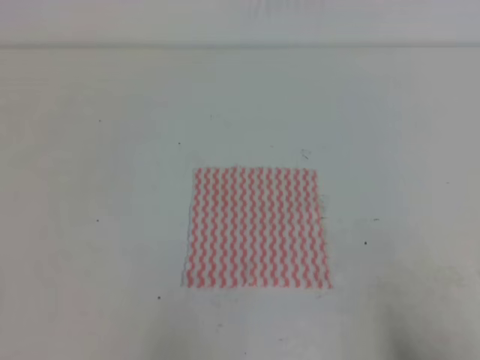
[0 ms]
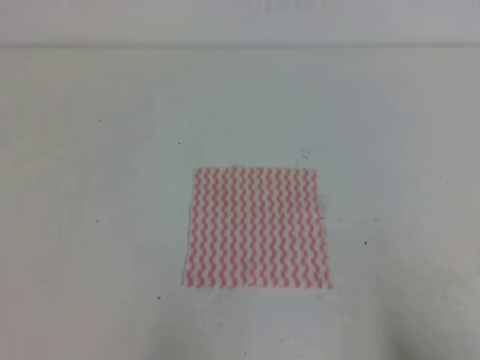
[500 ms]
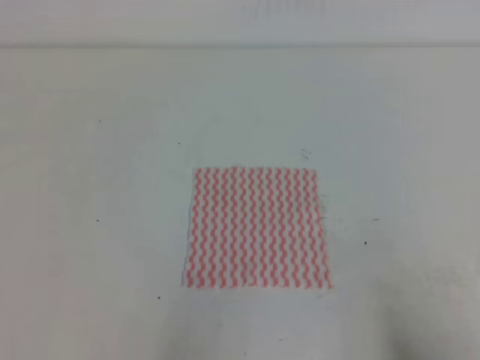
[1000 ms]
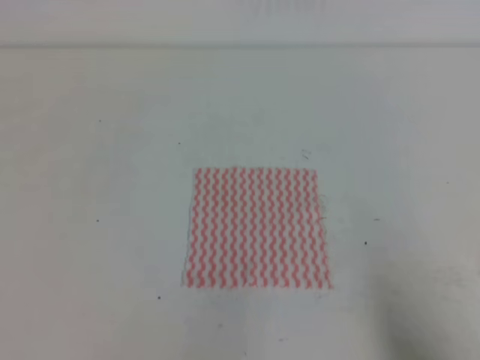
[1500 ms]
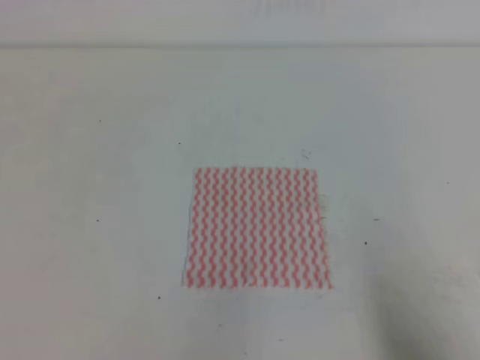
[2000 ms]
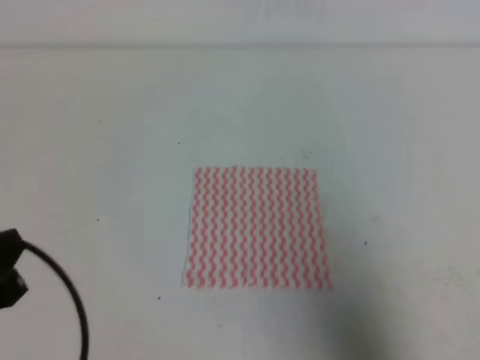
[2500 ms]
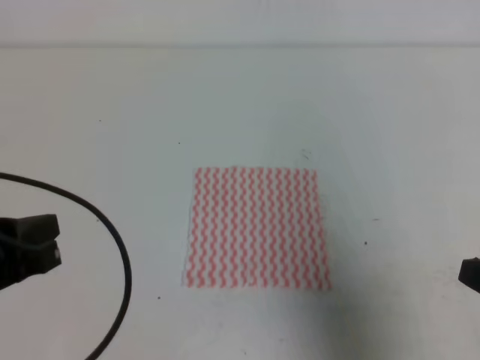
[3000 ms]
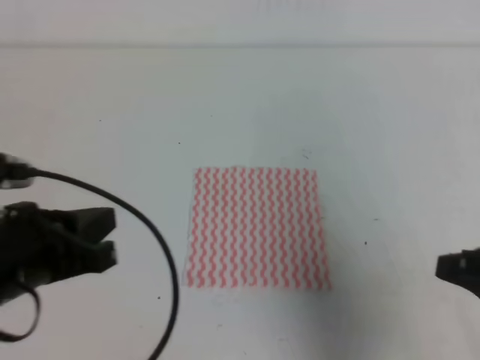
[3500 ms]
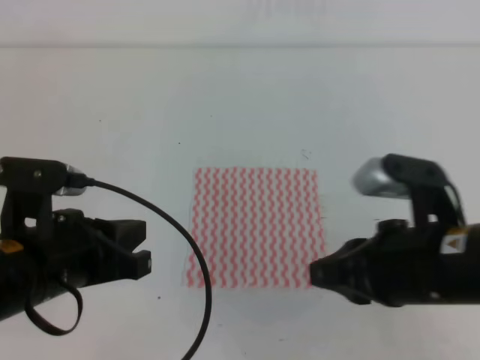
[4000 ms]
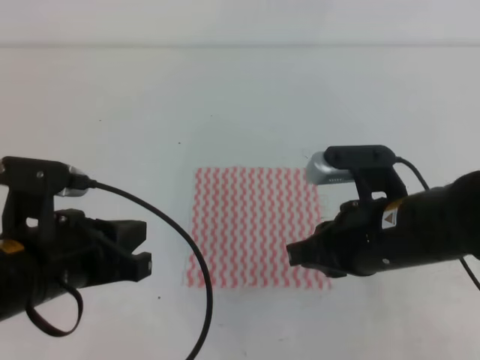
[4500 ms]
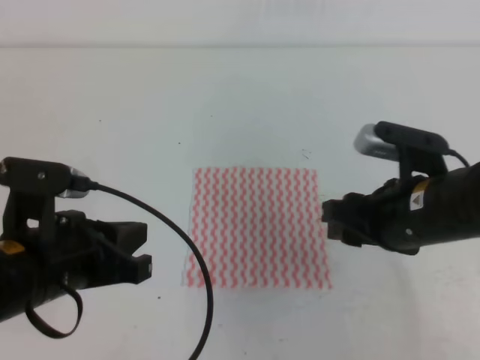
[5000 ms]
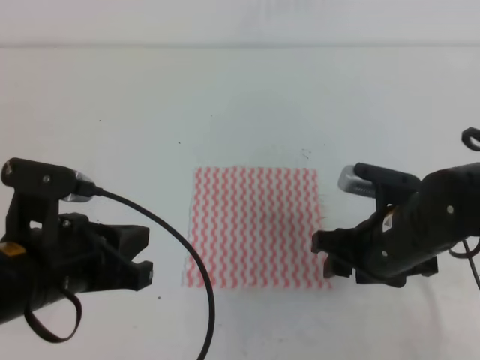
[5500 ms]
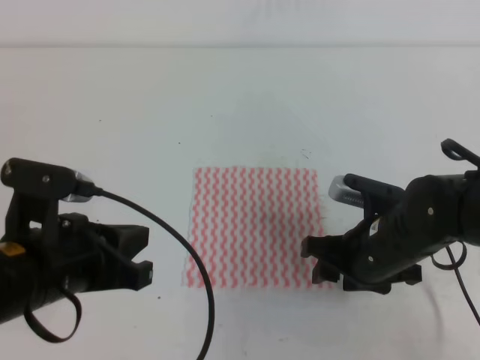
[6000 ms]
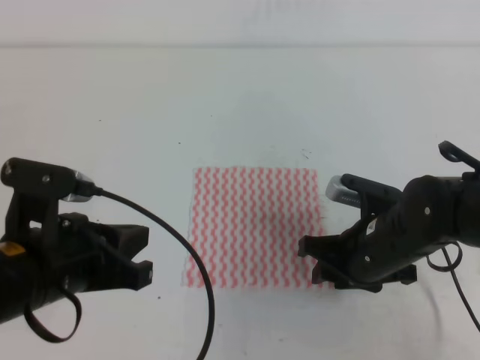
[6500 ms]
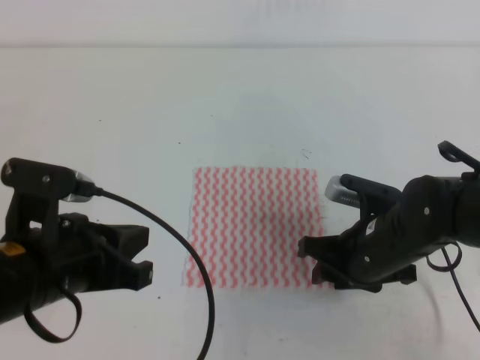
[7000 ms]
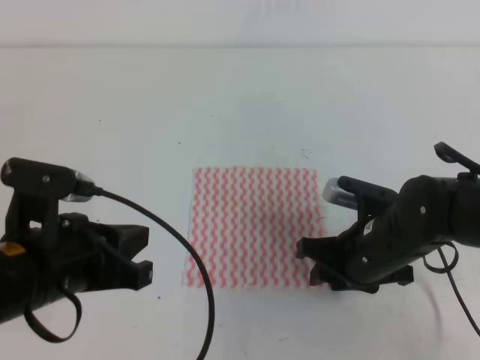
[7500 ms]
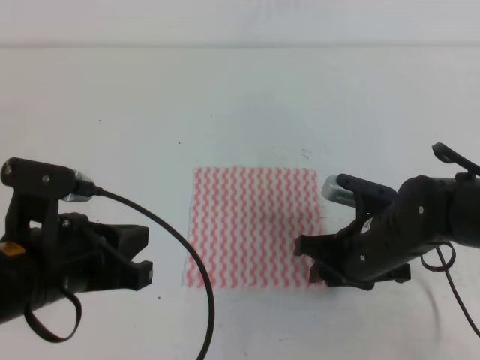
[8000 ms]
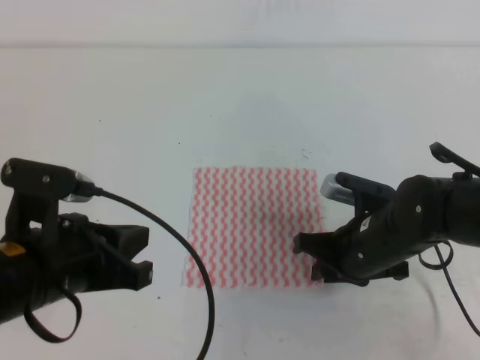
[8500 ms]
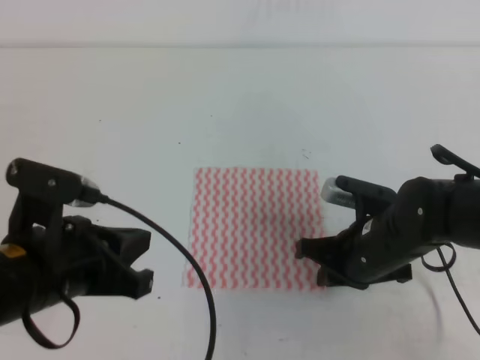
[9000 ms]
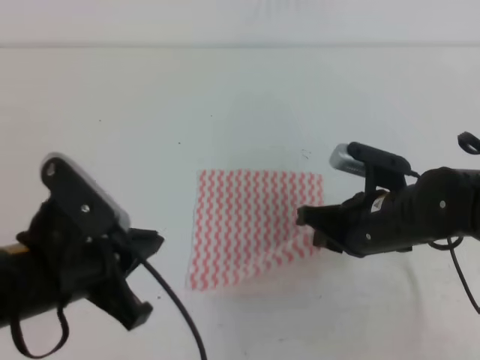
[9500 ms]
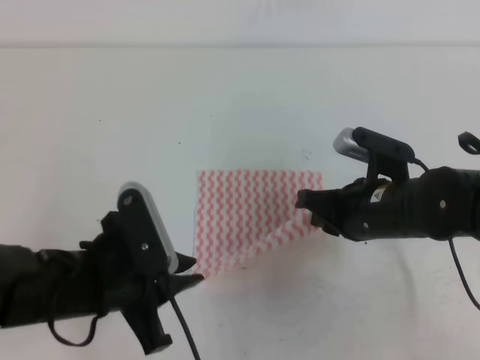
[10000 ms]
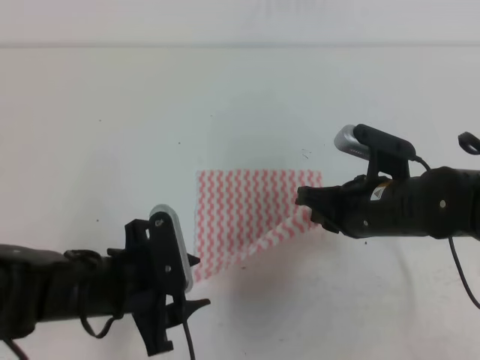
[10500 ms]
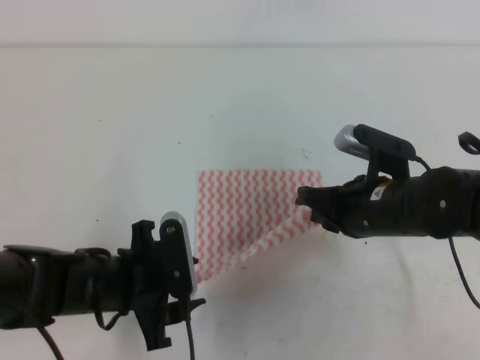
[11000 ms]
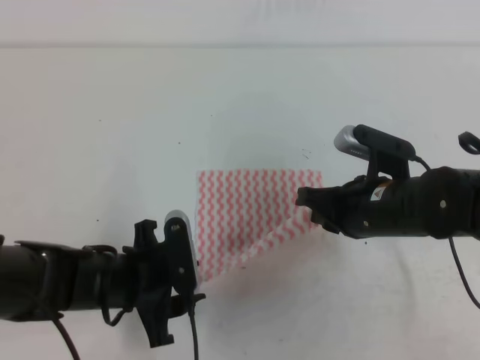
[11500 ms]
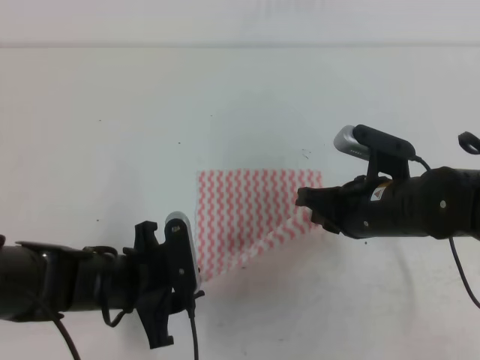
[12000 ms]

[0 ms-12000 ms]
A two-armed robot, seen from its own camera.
2000 ms to 4000 ms: The left gripper heads forward and to the right, covering some 15 cm, while the right gripper goes some 20 cm to the left, forward and upward.
4000 ms to 6000 ms: The right gripper shifts approximately 15 cm downward and forward, and opens up.
6000 ms to 8000 ms: The right gripper closes its fingers.
8000 ms to 10000 ms: The left gripper moves roughly 5 cm, and opens. The right gripper closes.
10000 ms to 12000 ms: The left gripper shifts roughly 5 cm downward, and opens, then closes again.

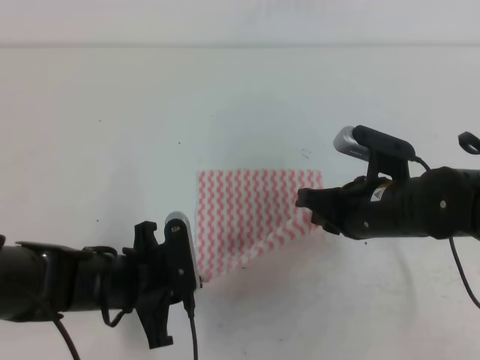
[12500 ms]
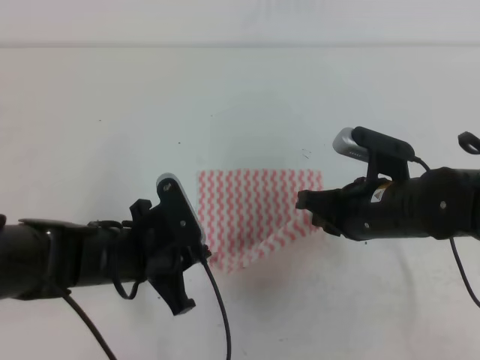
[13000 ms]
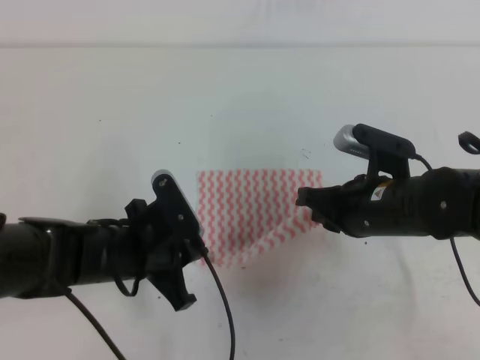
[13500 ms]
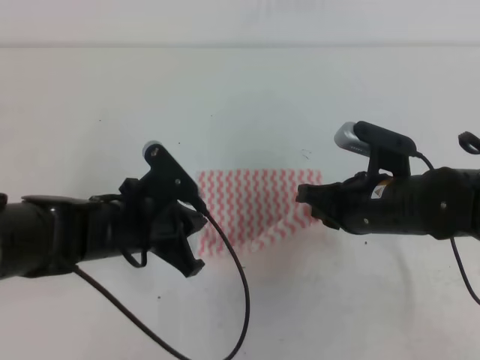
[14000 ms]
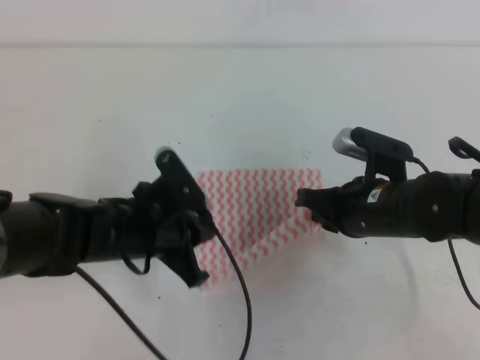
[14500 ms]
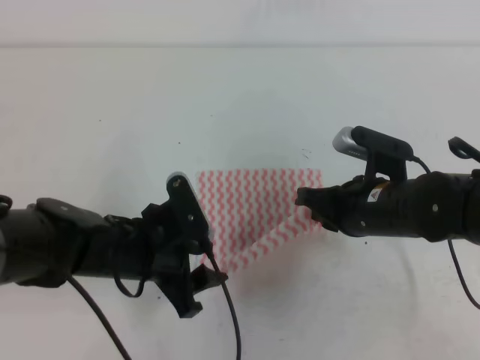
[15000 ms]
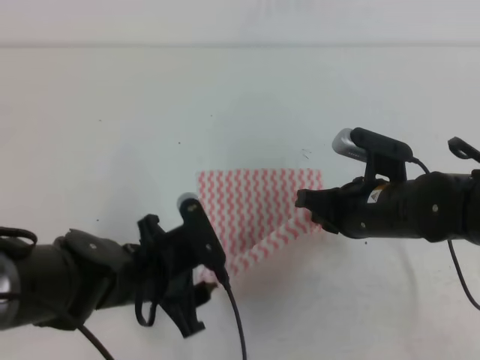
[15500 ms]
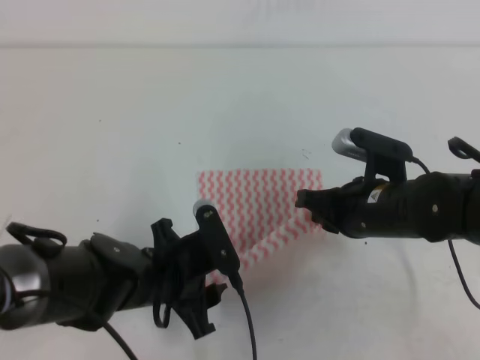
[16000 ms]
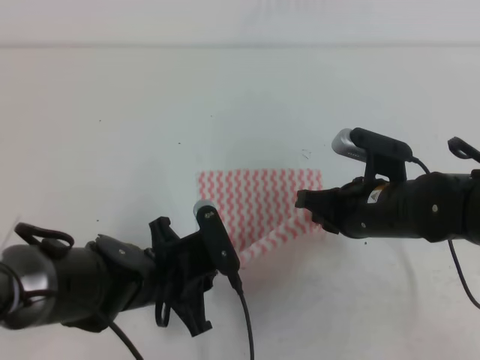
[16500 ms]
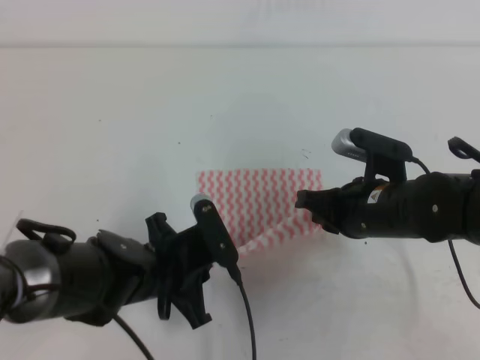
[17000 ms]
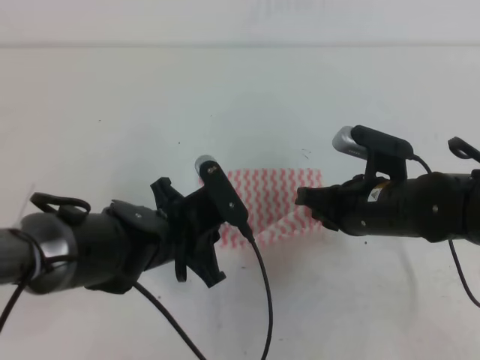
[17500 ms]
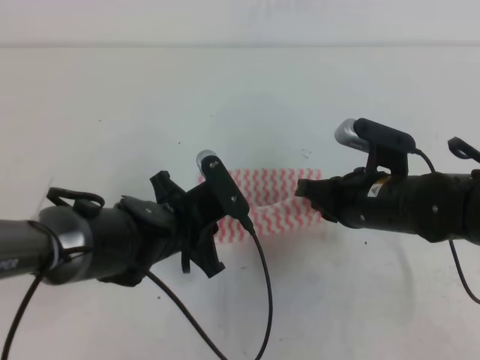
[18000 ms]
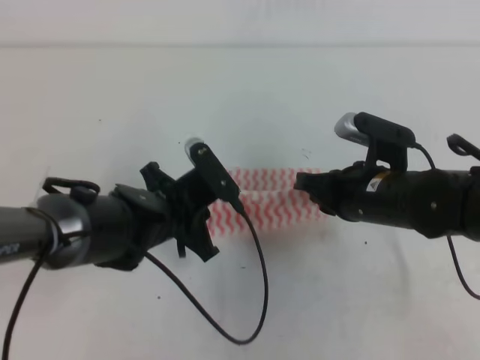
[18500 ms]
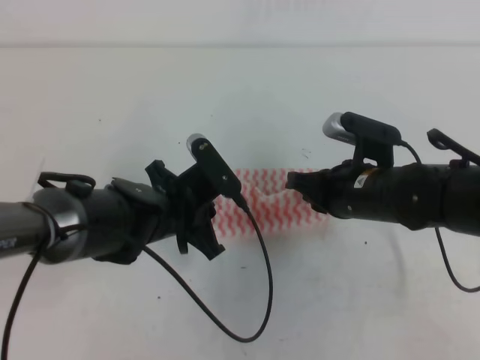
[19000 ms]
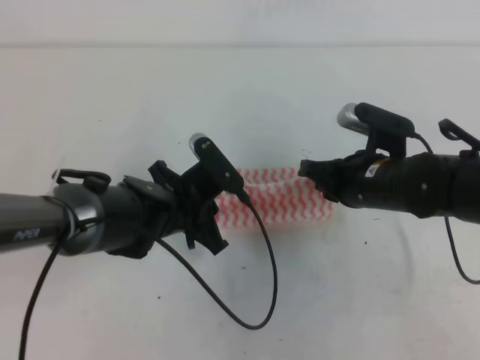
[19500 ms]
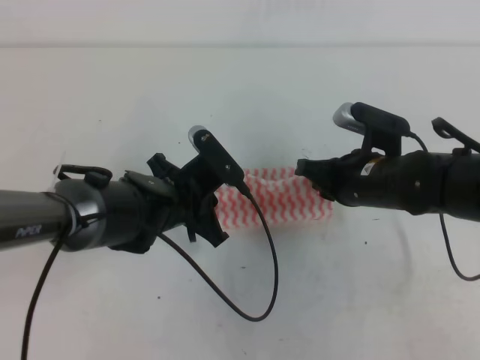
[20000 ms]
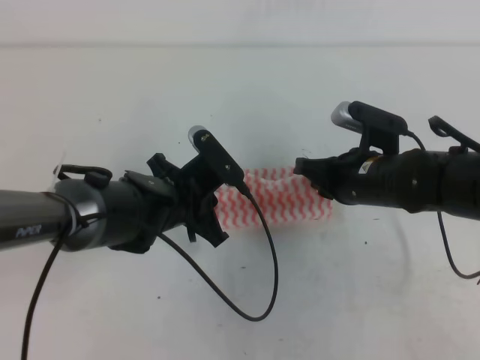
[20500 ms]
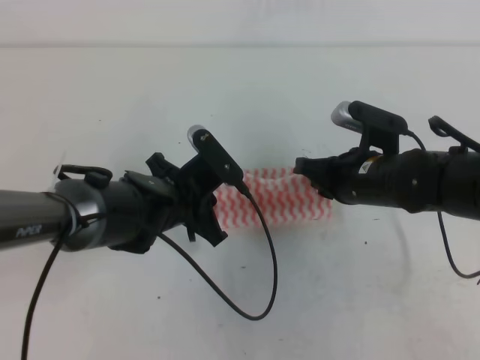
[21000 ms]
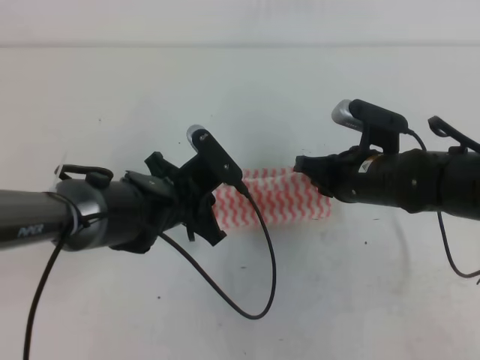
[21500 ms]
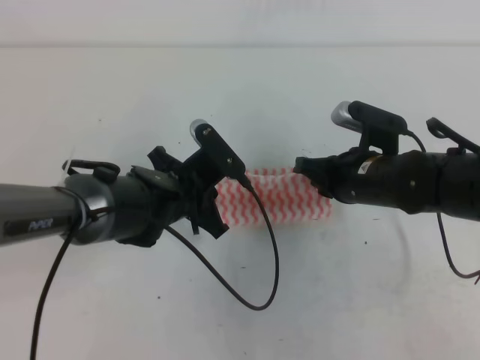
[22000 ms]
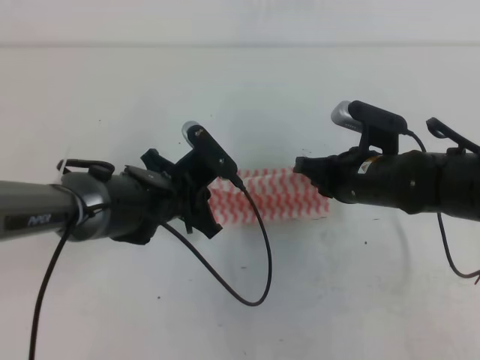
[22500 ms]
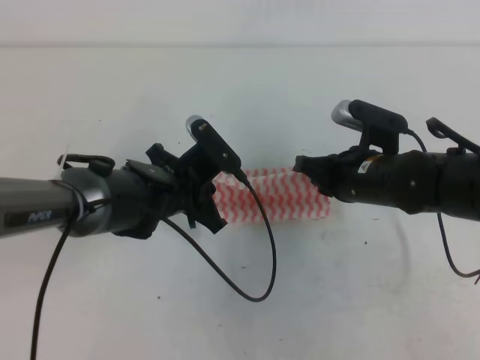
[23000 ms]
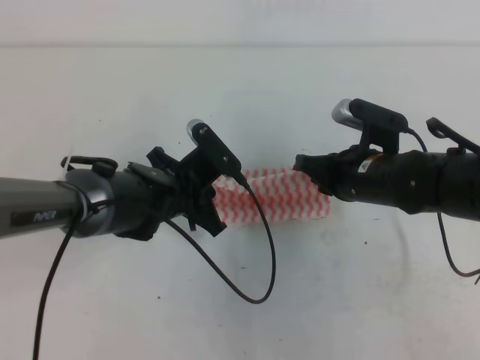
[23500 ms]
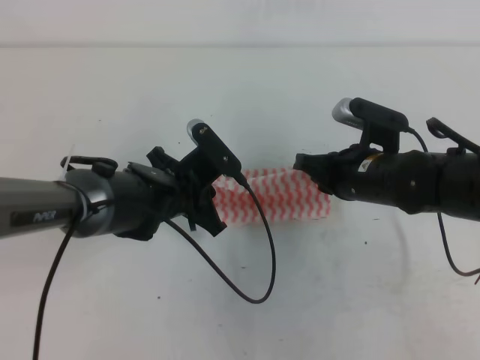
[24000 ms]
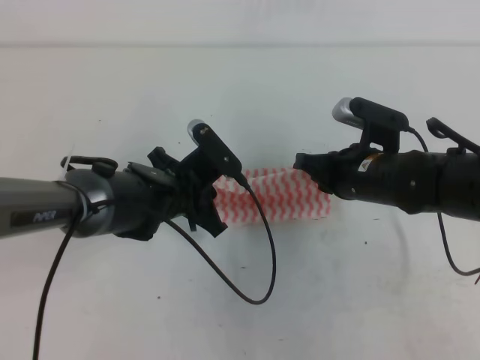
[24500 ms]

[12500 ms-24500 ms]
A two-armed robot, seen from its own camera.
Step, 12500 ms to 20500 ms: Fold the towel upwards with the both gripper.
Step, 21000 ms to 24000 ms: Tidy up the towels.
12500 ms to 14500 ms: The left gripper ends up approximately 5 cm from where it was.
14500 ms to 16500 ms: The left gripper heads downward, covering roughly 5 cm, and opens and closes again.
16500 ms to 18500 ms: The left gripper moves forward, roughly 5 cm.
18500 ms to 22500 ms: There are only small adjustments of the grippers.
22500 ms to 24500 ms: Both grippers stay about where they are.

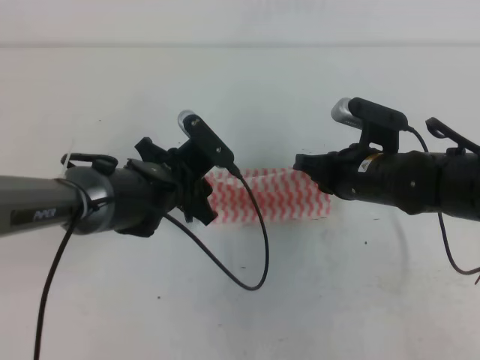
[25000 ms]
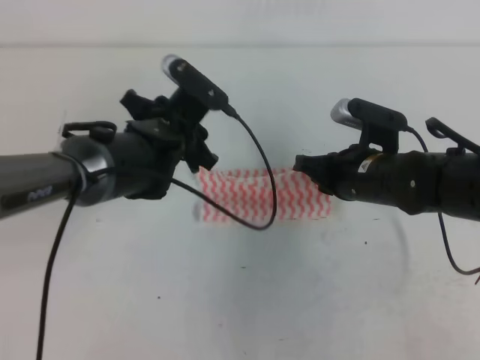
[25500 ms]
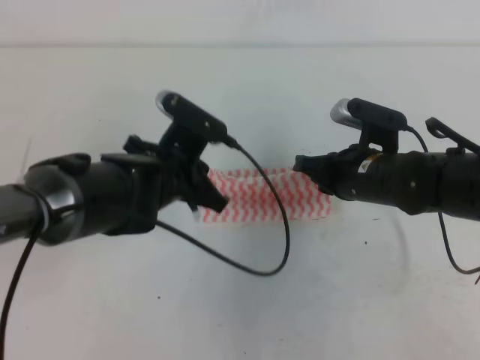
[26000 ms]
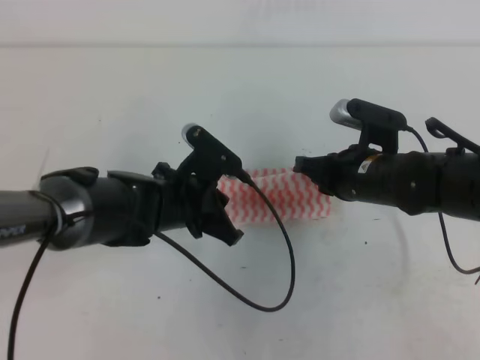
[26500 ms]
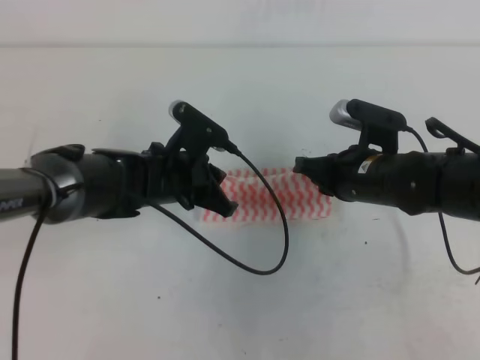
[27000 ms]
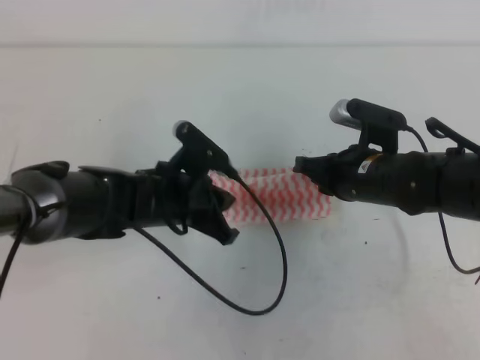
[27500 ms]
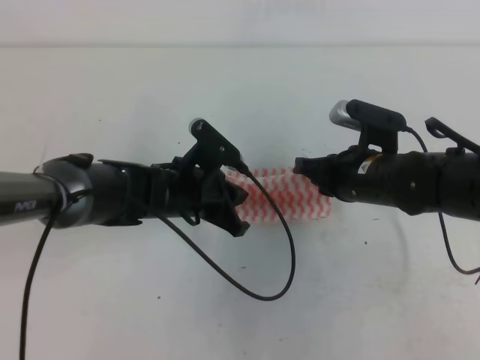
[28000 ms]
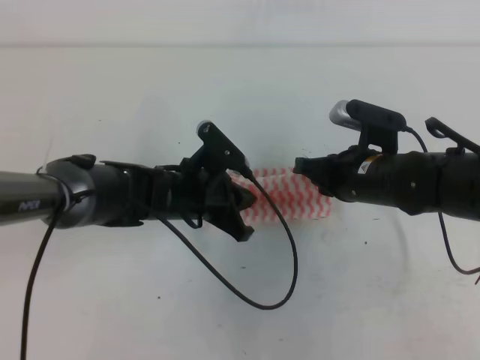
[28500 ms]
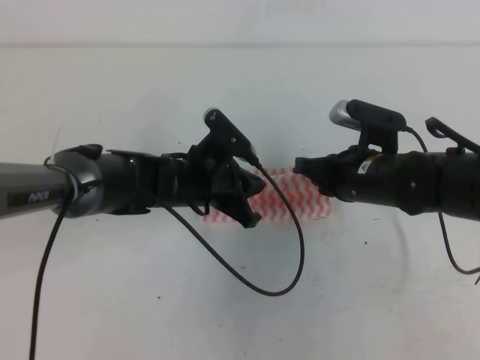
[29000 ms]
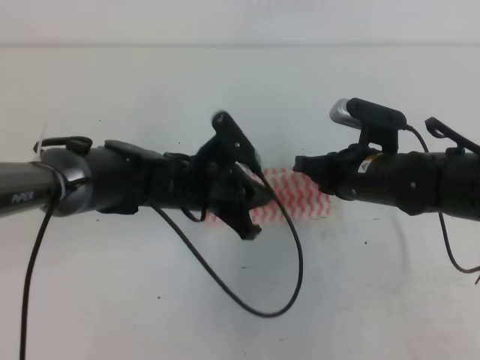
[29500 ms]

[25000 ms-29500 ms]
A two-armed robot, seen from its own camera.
25000 ms to 27000 ms: The left gripper closes.
